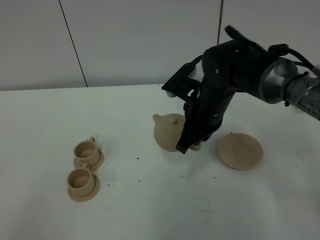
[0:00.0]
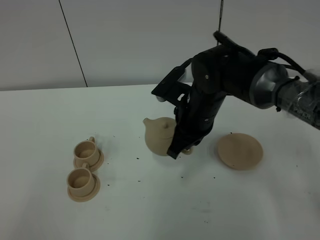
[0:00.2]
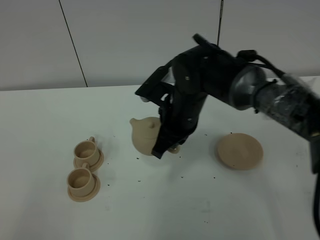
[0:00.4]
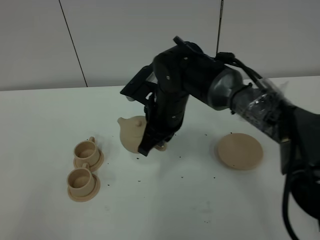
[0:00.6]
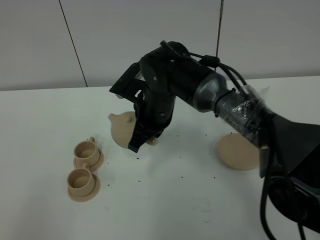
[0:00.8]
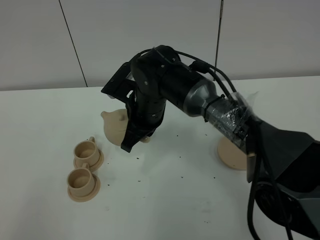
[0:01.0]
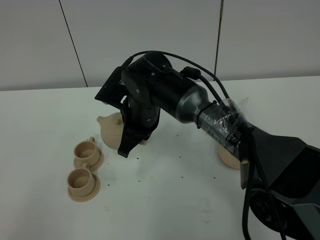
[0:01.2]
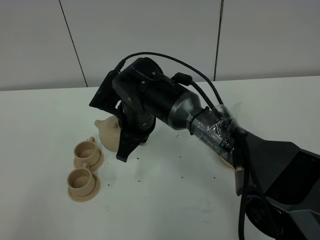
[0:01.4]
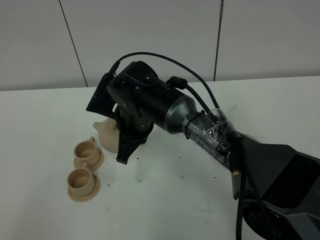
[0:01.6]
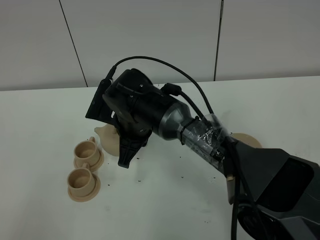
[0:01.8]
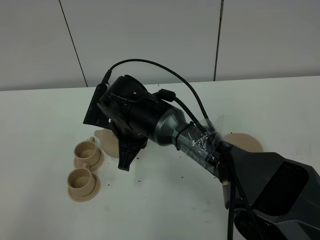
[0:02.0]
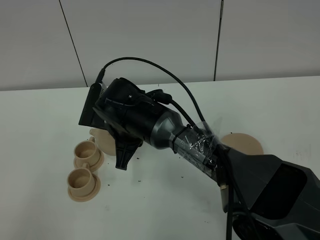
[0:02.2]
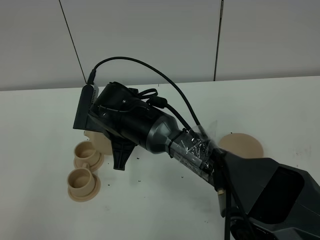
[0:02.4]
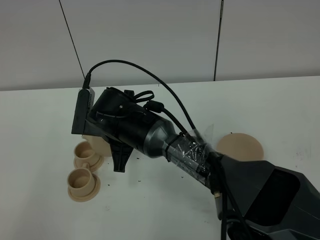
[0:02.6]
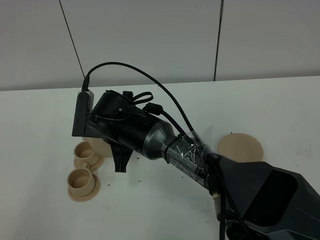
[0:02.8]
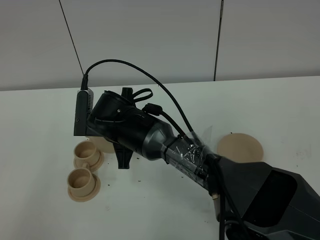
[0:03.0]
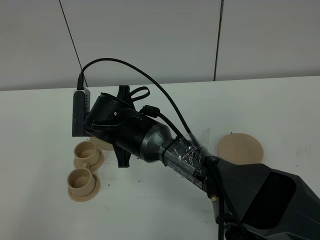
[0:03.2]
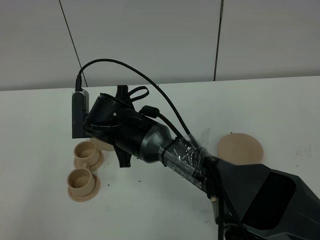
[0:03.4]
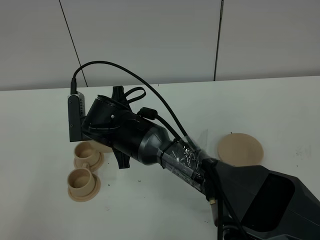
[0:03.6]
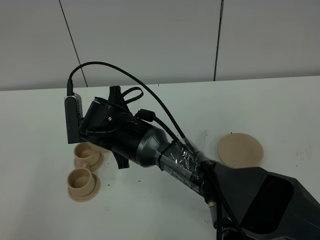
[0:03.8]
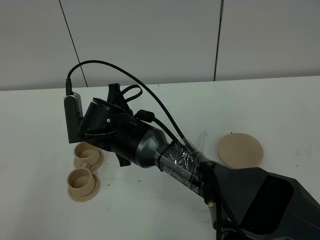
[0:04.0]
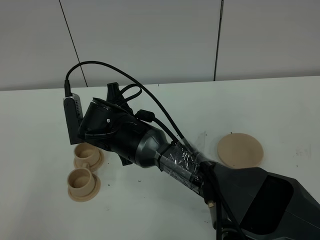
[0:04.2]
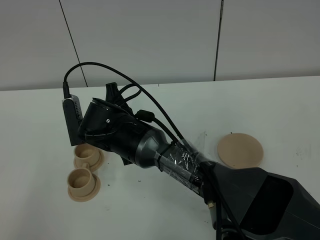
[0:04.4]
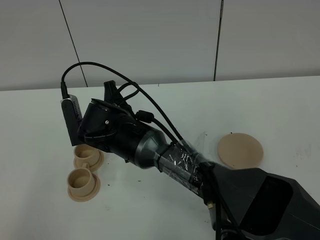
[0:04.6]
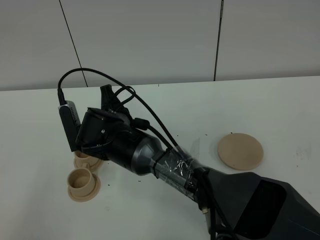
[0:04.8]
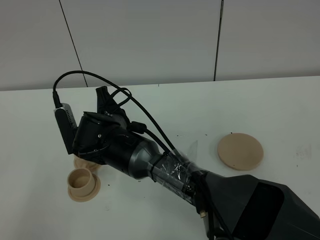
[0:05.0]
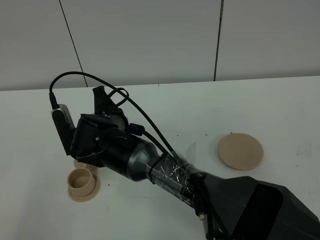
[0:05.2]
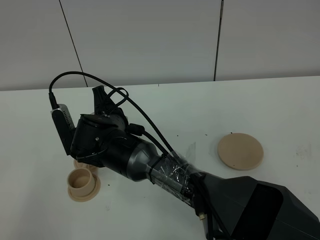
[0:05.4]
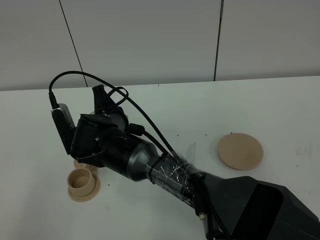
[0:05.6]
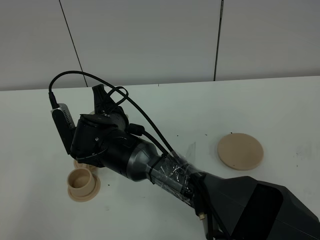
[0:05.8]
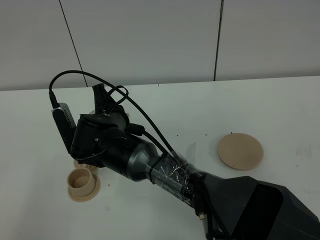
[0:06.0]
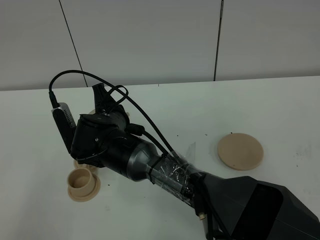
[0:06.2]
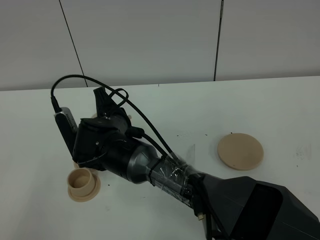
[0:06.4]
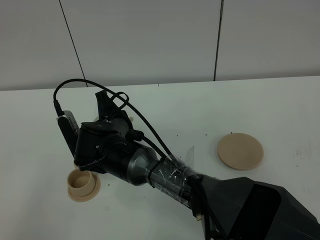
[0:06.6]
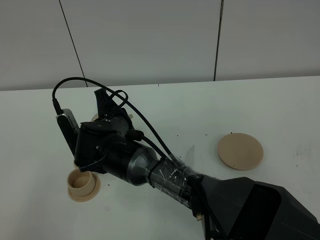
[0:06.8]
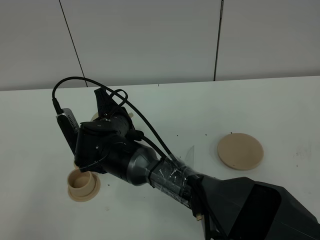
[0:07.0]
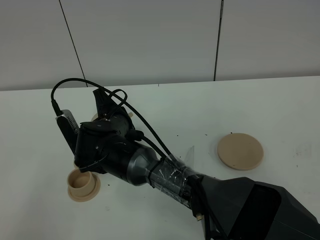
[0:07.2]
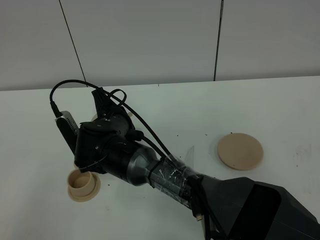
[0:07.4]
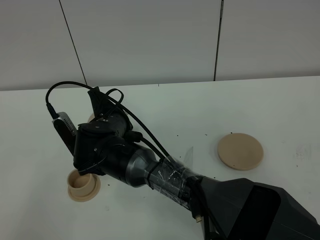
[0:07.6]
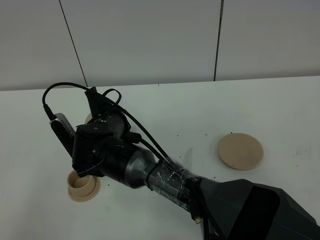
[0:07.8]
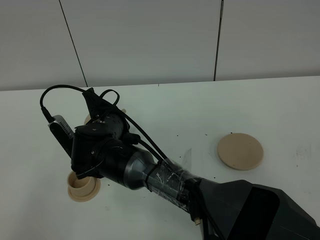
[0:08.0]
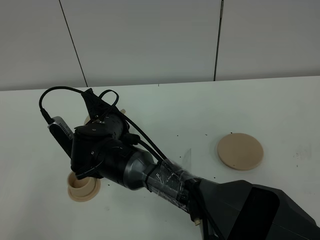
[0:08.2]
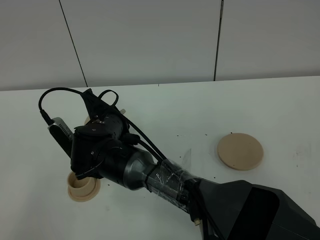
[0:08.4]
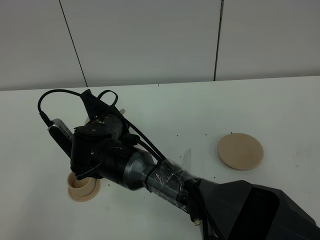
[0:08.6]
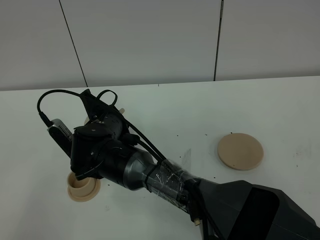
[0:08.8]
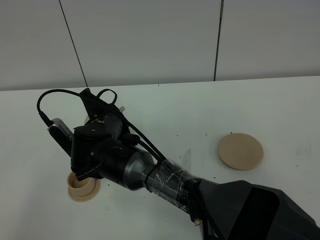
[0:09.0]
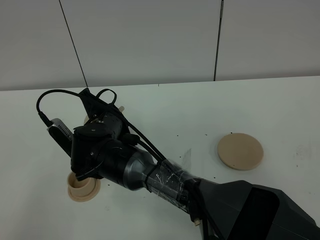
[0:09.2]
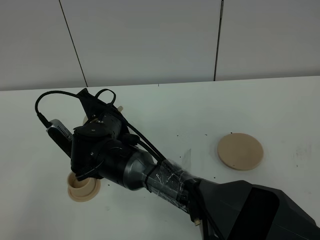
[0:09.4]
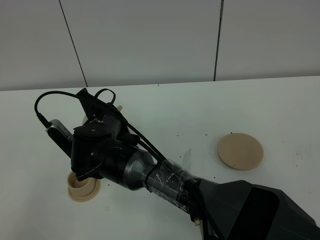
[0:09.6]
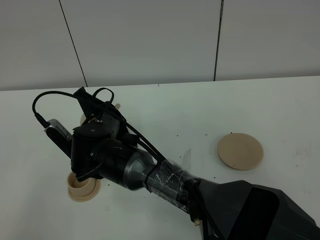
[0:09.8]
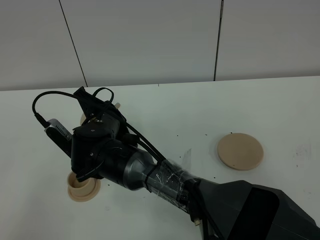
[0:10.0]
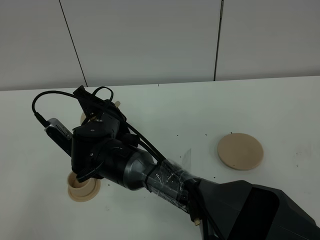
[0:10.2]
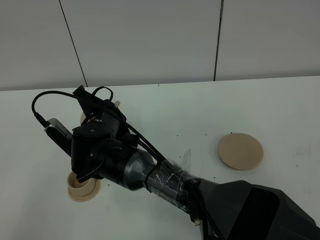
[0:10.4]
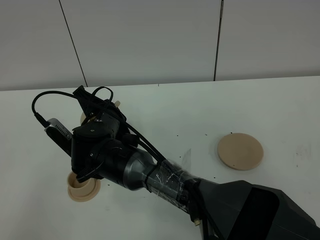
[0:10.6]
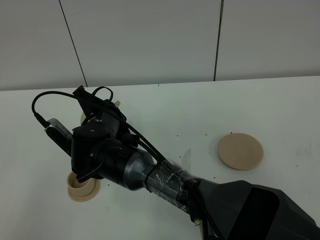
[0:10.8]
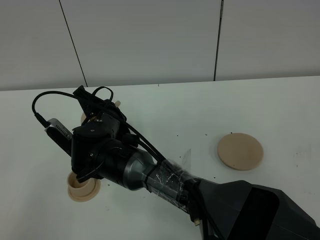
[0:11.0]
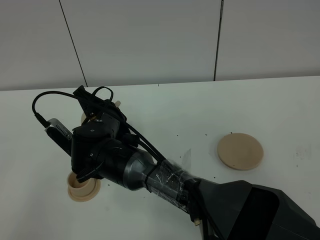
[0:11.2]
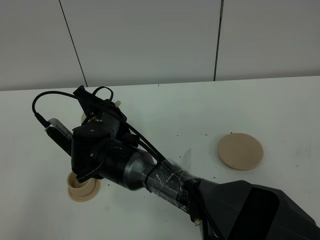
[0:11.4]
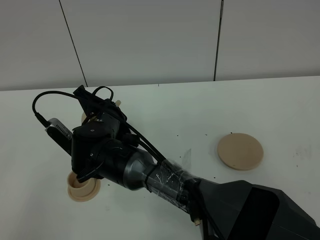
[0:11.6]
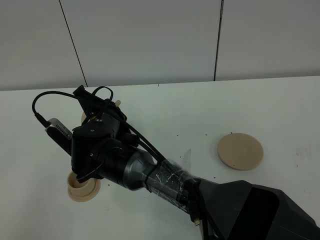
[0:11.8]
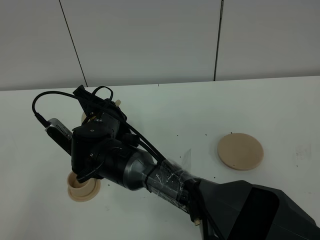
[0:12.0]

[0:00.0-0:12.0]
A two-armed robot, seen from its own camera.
Task of the whole recording: grasp the brown teapot and pour the tea into the two brown teacups one by one, put the brown teapot back in its original place.
0:00.0 to 0:01.6: The right gripper goes about 15 cm to the left.
0:03.0 to 0:04.4: The grippers make only small movements.
0:04.4 to 0:06.0: The grippers make only small movements.
0:06.0 to 0:09.0: The grippers stay close to where they were, moving slightly.
0:09.0 to 0:10.4: Both grippers stay about where they are.
0:10.4 to 0:12.0: Both grippers stay put.

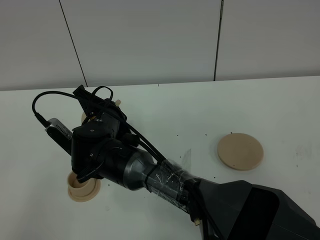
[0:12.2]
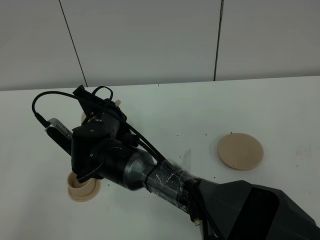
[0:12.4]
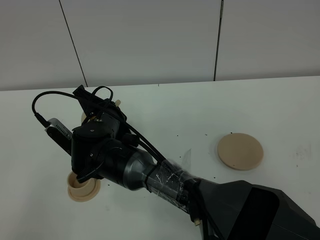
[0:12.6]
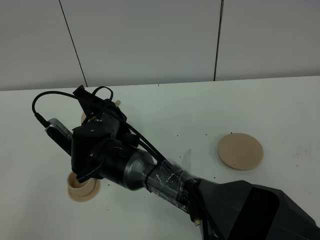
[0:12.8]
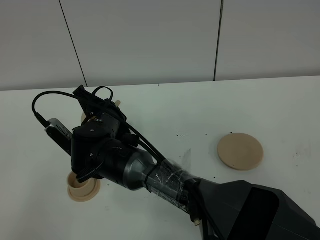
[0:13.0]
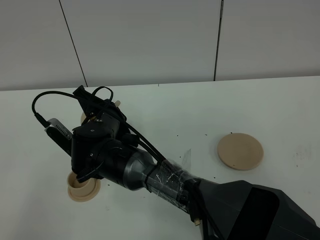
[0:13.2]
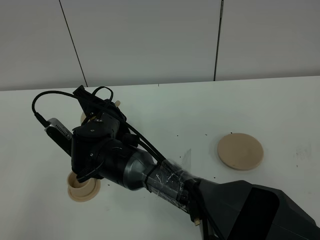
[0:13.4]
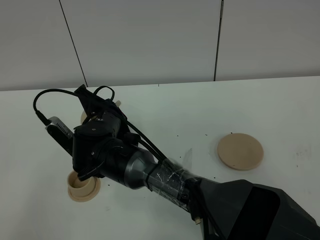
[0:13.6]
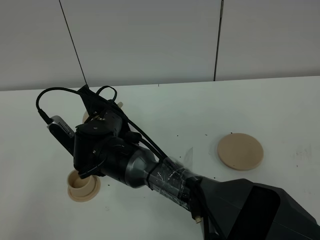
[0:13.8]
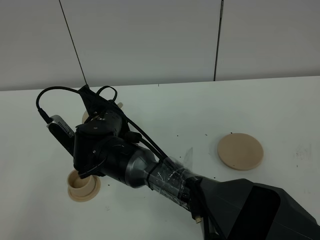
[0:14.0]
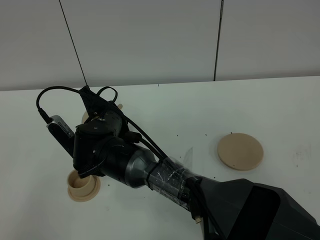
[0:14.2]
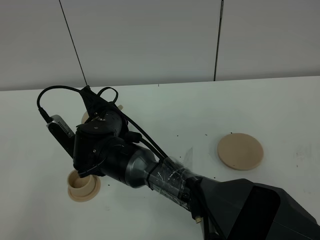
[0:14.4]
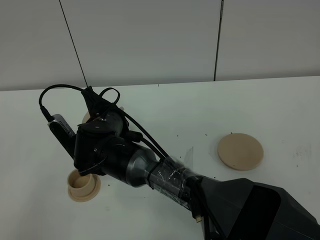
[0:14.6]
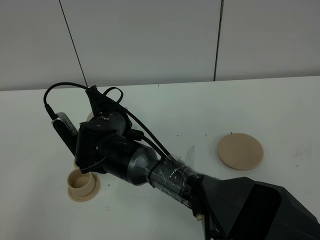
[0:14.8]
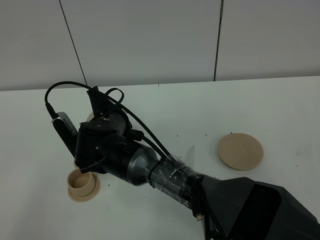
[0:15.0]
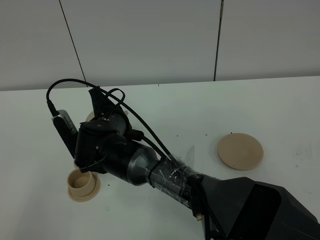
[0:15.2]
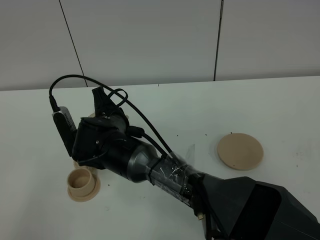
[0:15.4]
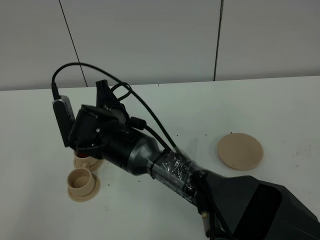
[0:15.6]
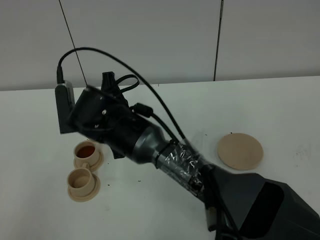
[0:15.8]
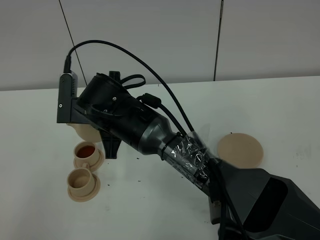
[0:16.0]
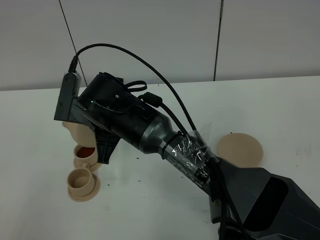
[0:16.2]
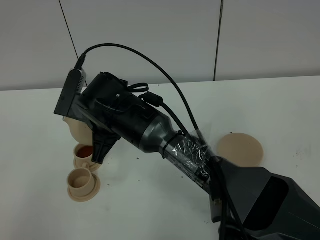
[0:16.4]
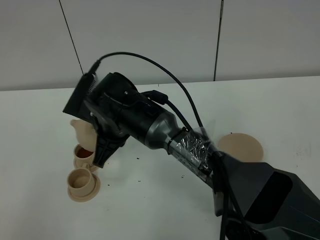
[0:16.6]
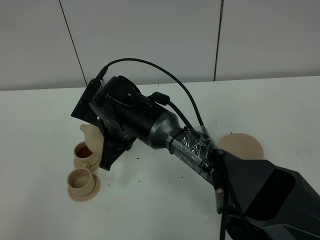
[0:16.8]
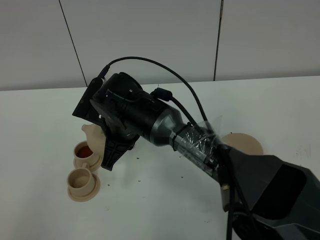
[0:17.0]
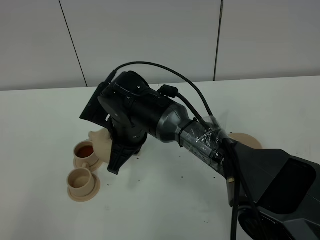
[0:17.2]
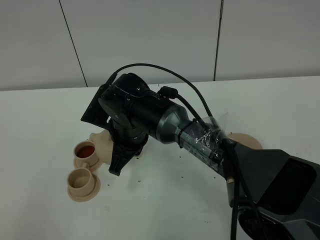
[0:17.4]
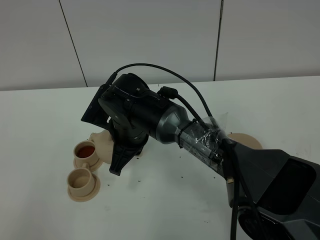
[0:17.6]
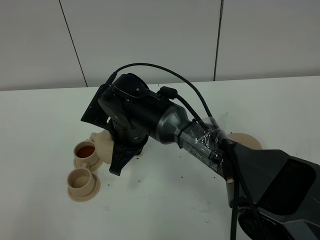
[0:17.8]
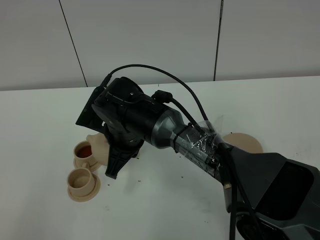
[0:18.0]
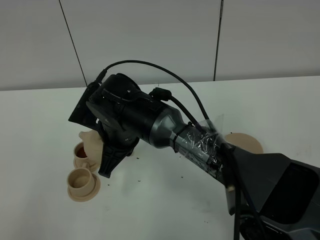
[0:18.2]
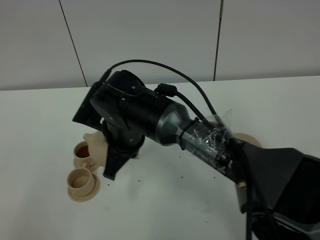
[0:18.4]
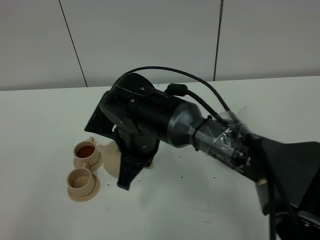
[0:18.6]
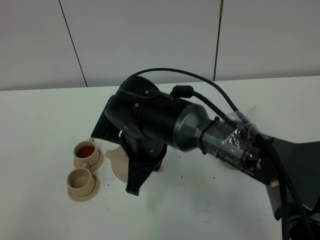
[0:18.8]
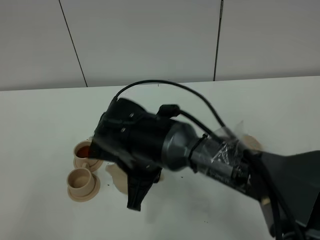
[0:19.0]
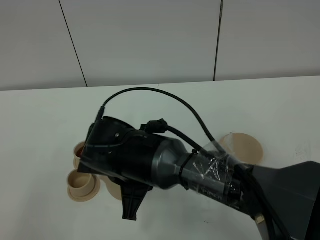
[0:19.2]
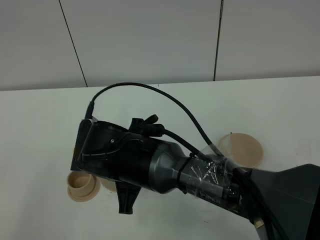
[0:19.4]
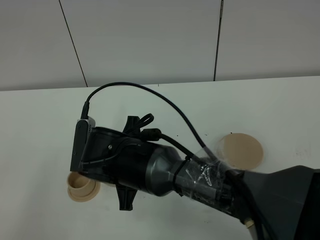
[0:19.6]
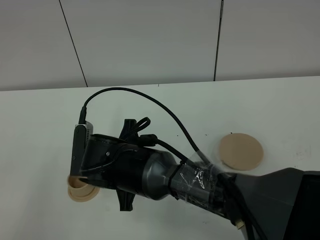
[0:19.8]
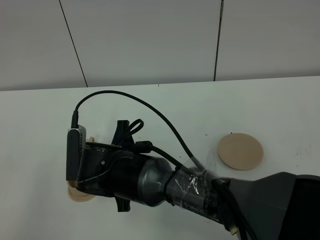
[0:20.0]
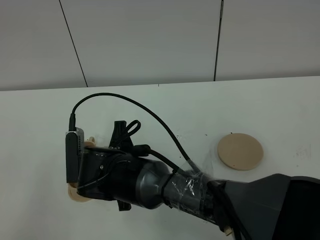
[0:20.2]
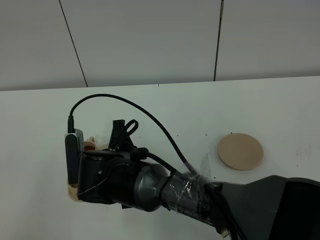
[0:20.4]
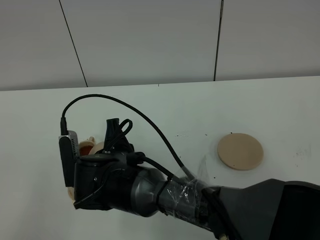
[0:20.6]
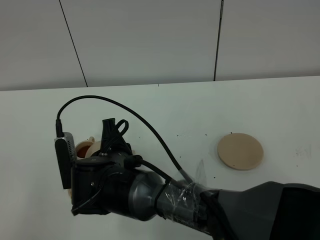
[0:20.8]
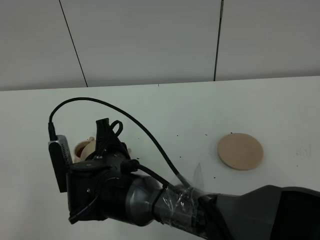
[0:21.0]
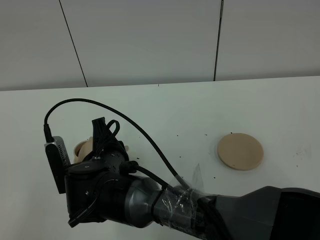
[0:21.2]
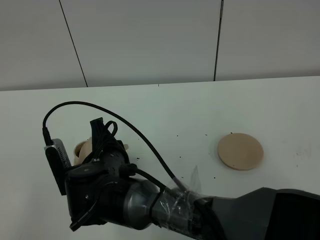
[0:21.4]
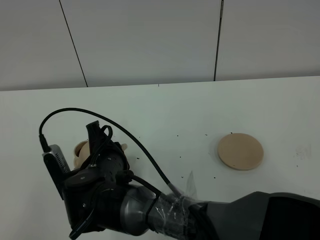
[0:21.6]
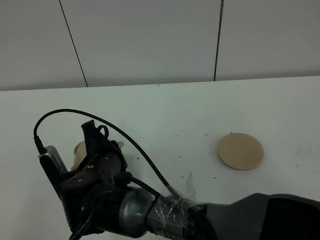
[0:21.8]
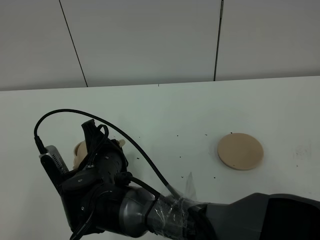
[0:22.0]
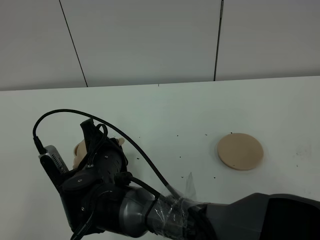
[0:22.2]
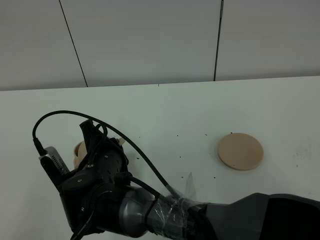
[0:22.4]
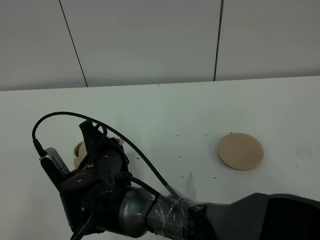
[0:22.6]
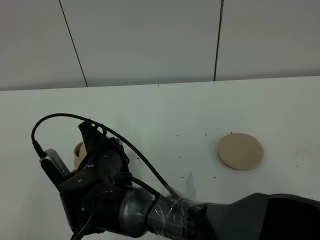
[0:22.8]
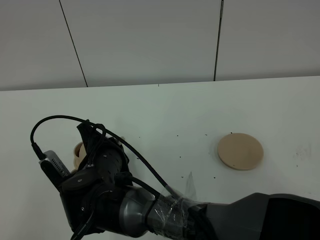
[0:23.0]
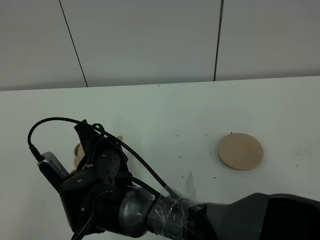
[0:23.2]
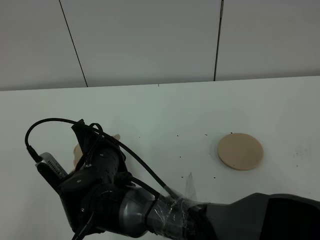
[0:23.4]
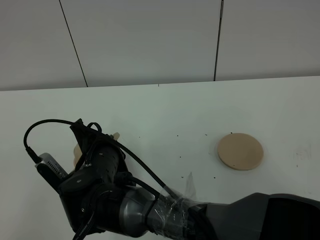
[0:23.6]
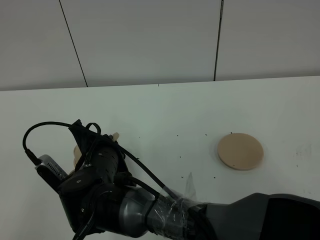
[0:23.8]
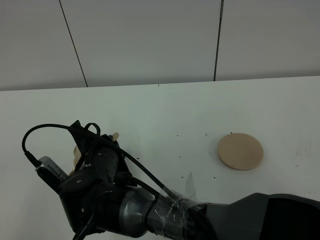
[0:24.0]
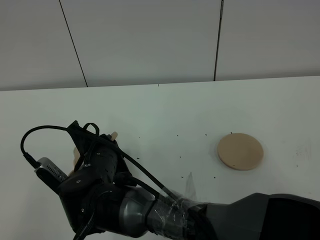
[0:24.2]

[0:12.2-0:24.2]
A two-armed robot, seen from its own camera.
Task of the whole recording: grasp the brown teapot and pour the tea into the two brown teacups one by one, put the brown teapot back in its original place.
0:12.2 to 0:13.8: Neither gripper changes place.
0:13.8 to 0:15.2: The grippers stay close to where they were, moving slightly.
0:16.6 to 0:18.2: The grippers stay close to where they were, moving slightly.
0:18.2 to 0:19.8: The right gripper is displaced backward by about 5 cm.
0:21.2 to 0:22.6: The grippers move only a little.
0:22.6 to 0:24.2: The grippers make only small movements.
